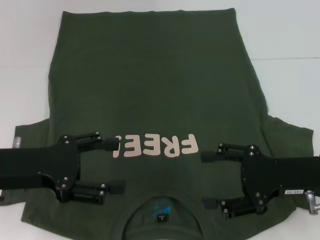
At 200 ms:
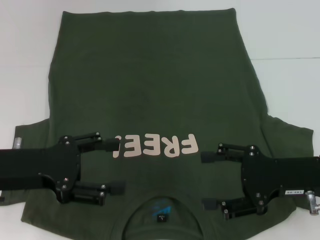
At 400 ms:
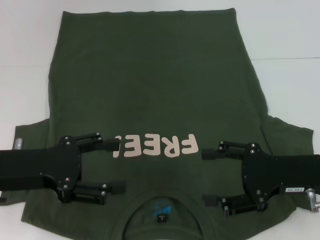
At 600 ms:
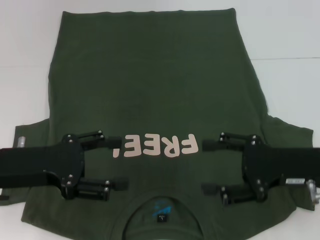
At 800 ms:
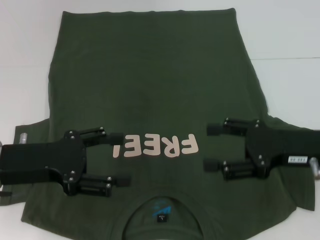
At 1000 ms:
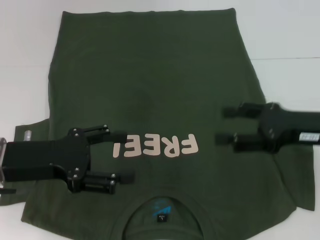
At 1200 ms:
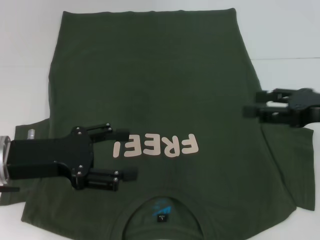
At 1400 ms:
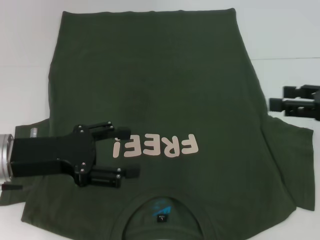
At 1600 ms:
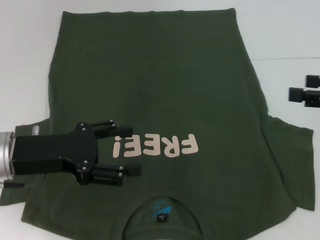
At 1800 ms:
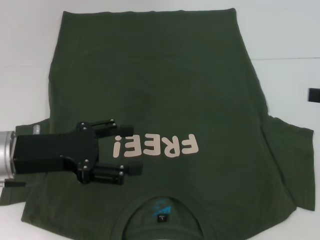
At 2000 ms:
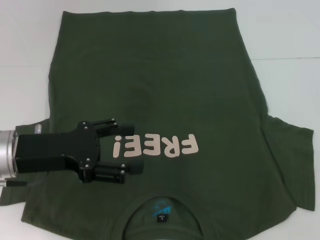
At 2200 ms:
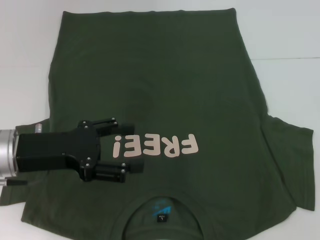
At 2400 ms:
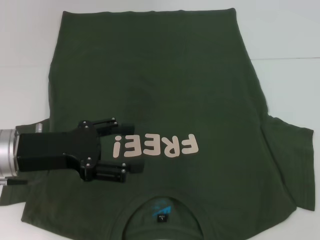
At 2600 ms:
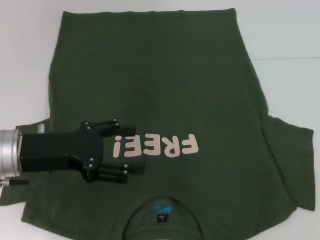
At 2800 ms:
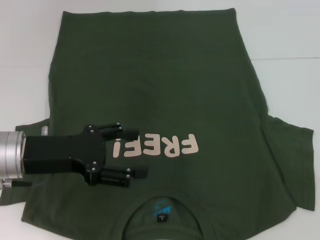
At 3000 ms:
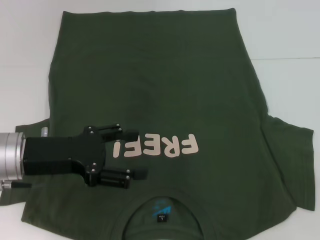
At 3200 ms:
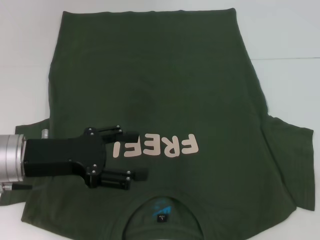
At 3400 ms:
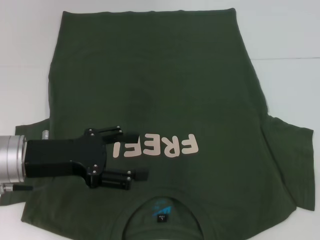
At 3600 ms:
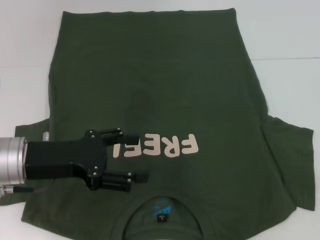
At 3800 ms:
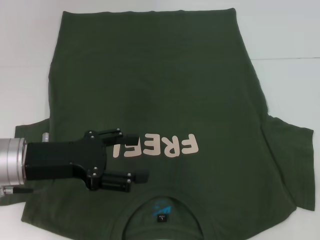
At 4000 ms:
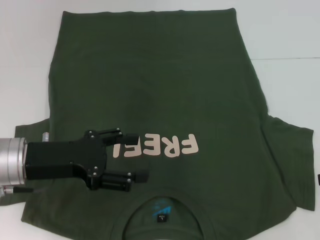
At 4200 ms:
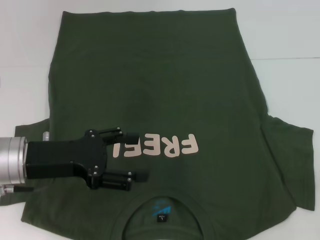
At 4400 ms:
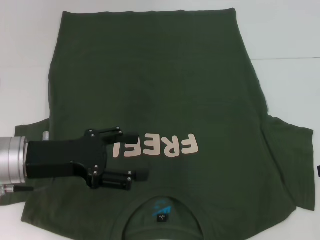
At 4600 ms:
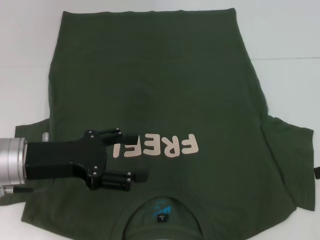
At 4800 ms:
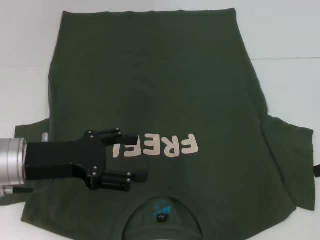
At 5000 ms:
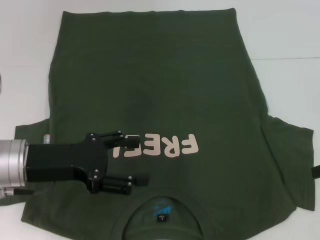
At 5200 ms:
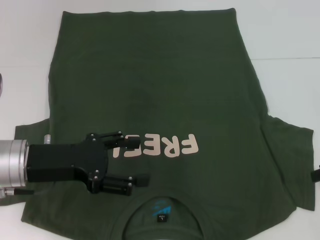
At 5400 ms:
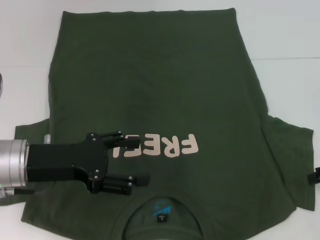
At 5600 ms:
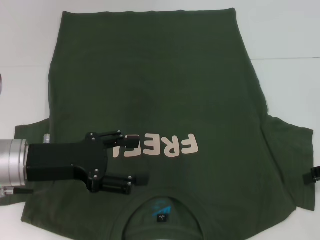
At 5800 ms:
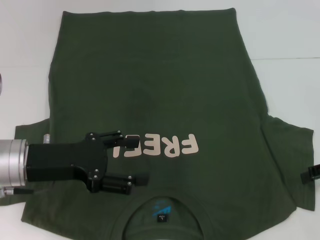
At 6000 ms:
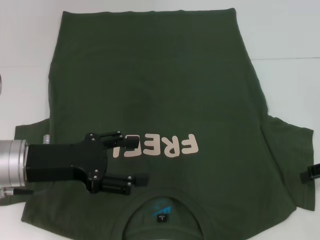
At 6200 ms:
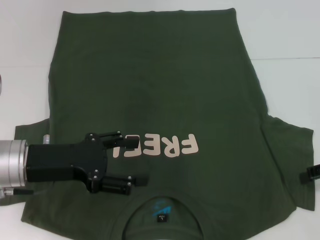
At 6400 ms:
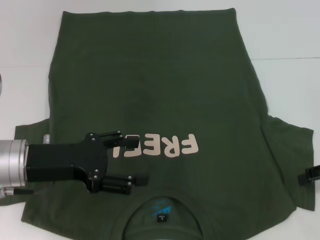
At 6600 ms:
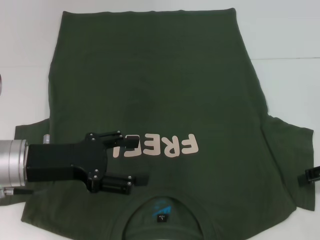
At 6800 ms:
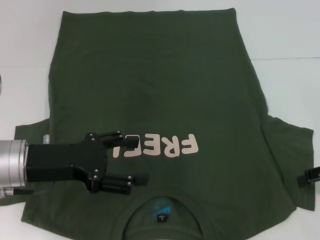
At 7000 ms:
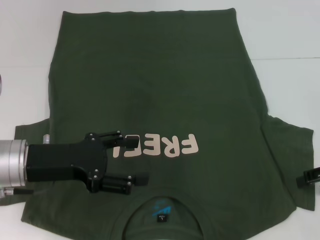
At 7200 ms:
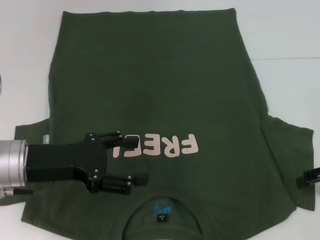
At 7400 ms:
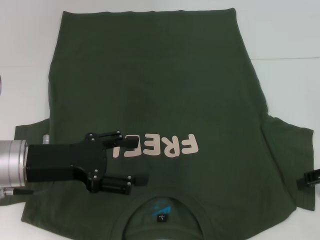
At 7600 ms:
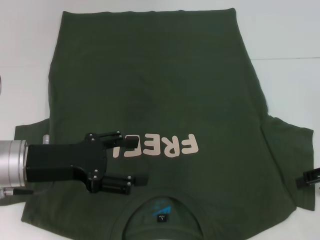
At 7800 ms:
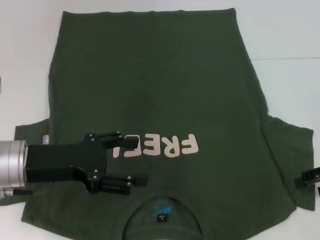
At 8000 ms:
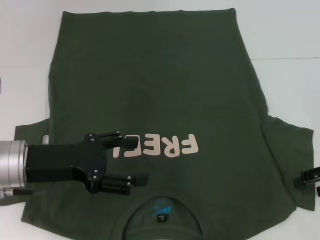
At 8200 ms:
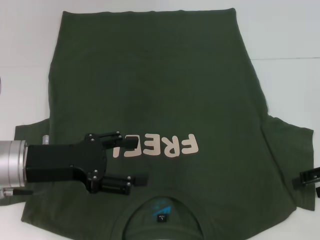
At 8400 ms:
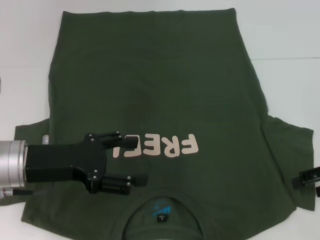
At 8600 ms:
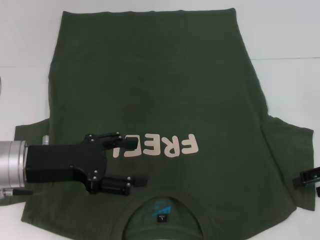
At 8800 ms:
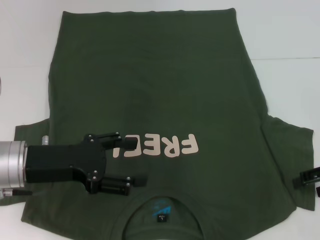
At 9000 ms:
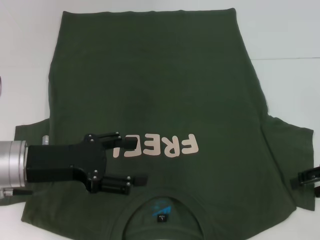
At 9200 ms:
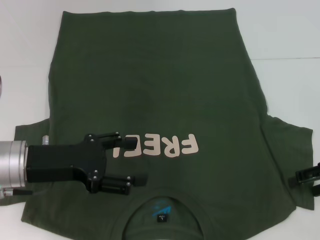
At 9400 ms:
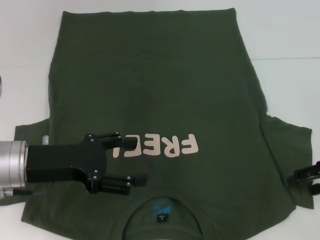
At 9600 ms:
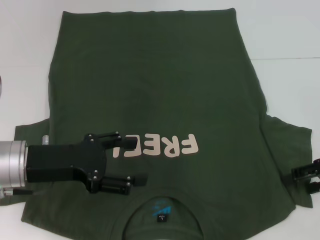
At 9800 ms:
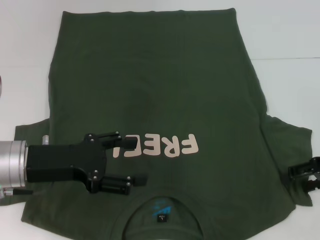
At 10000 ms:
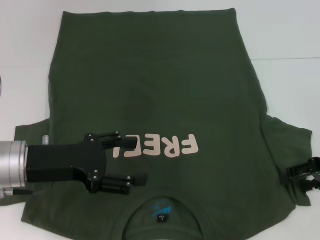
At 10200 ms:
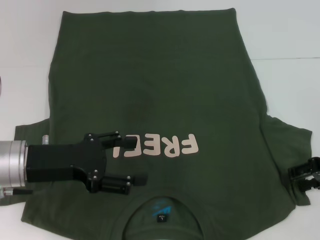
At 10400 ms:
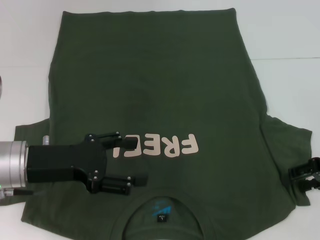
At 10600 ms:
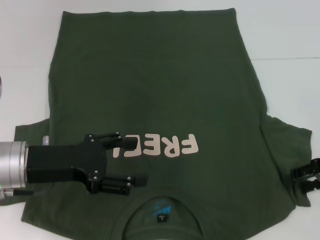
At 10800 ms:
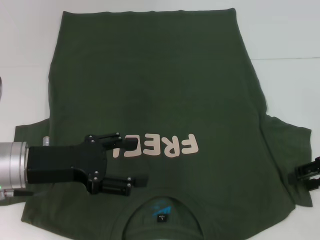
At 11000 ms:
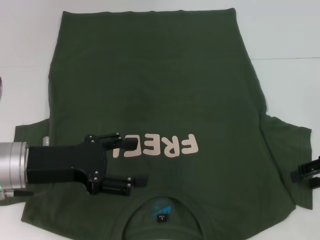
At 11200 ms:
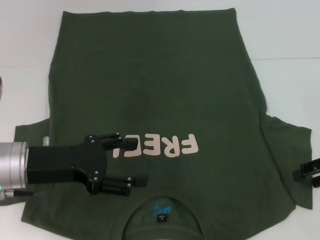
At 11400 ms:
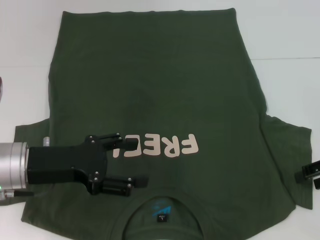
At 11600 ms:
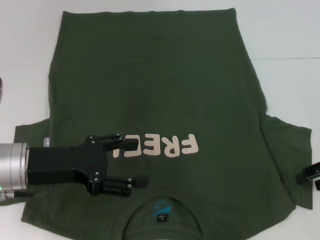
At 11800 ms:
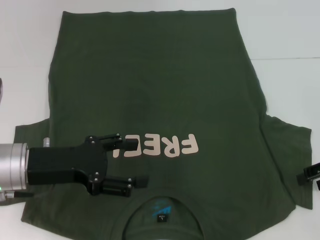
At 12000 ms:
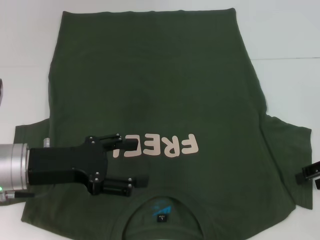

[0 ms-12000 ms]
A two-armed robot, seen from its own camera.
0 ms to 1600 ms: The right gripper heads upward and to the right, covering roughly 15 cm.
1600 ms to 3000 ms: The right gripper goes approximately 5 cm to the right.
4400 ms to 6000 ms: The grippers make only small movements.
6000 ms to 7600 ms: Both grippers stay put.
7600 ms to 9000 ms: The two grippers keep their place.
9000 ms to 12000 ms: The grippers stay close to where they were, moving slightly.

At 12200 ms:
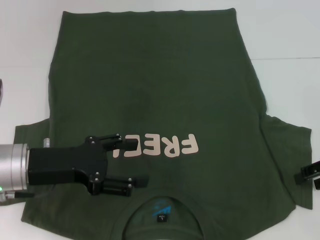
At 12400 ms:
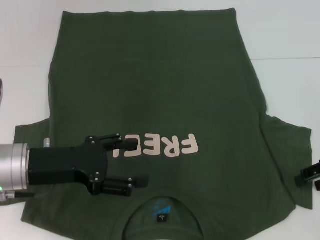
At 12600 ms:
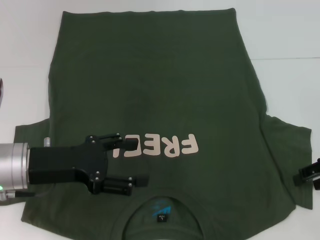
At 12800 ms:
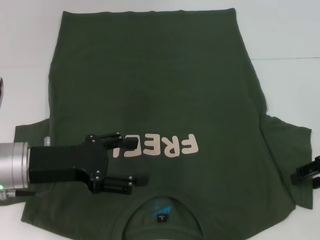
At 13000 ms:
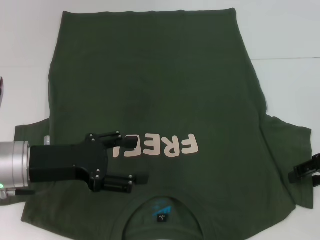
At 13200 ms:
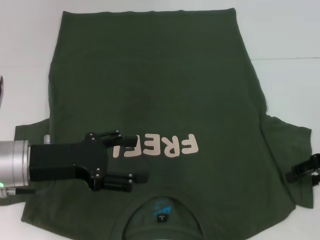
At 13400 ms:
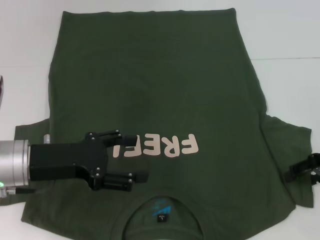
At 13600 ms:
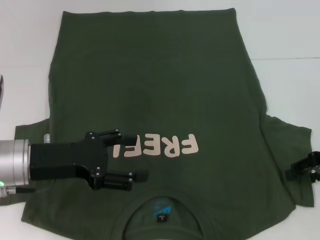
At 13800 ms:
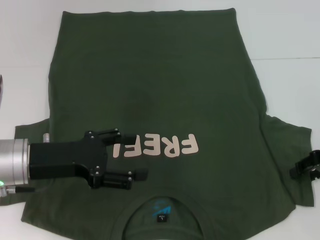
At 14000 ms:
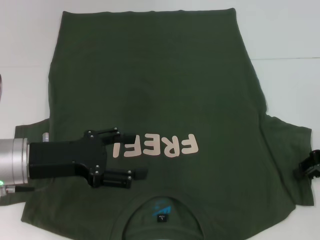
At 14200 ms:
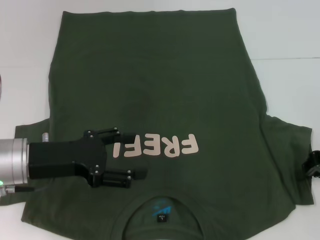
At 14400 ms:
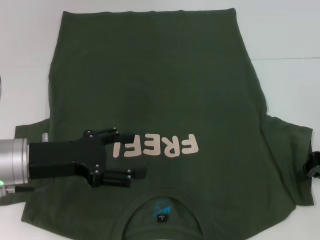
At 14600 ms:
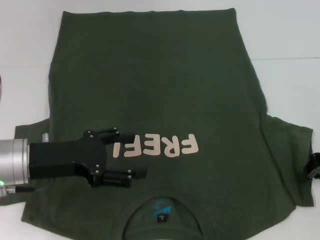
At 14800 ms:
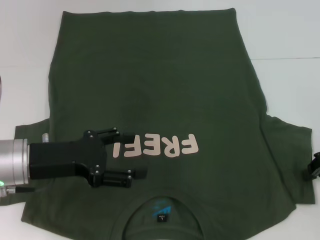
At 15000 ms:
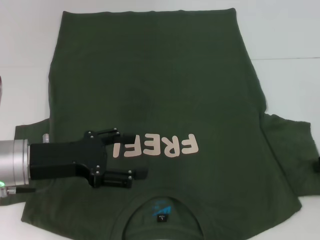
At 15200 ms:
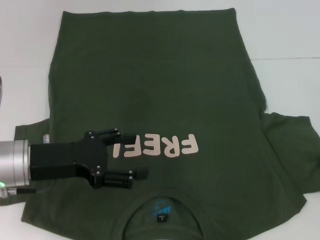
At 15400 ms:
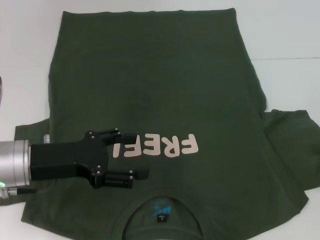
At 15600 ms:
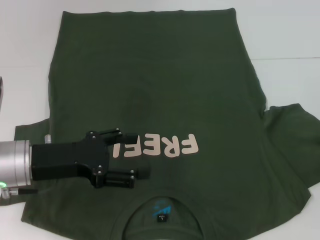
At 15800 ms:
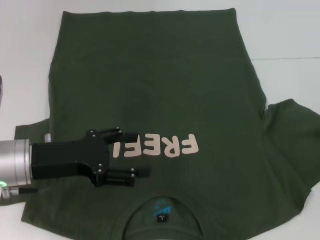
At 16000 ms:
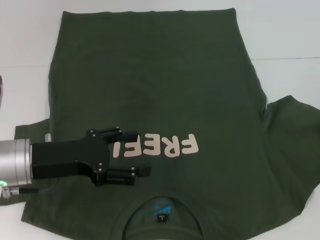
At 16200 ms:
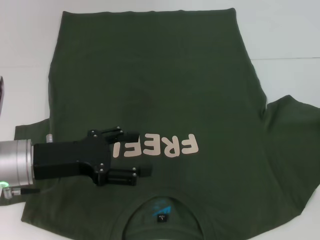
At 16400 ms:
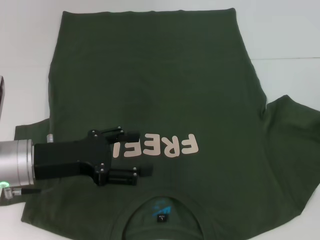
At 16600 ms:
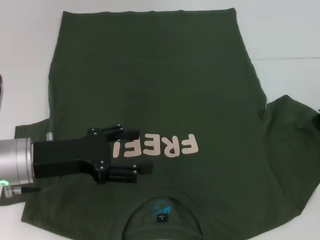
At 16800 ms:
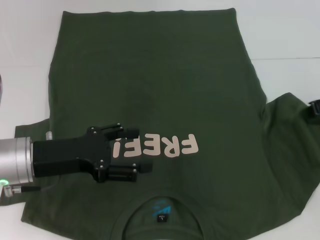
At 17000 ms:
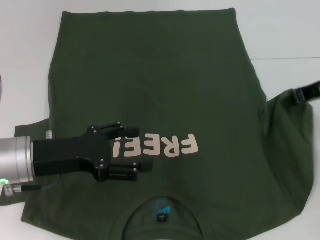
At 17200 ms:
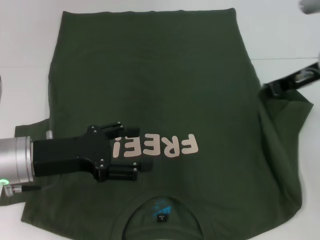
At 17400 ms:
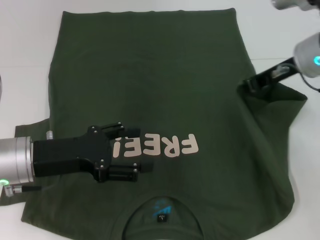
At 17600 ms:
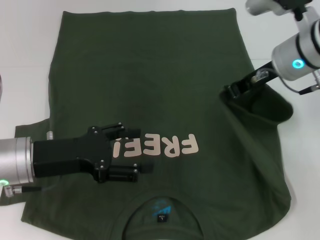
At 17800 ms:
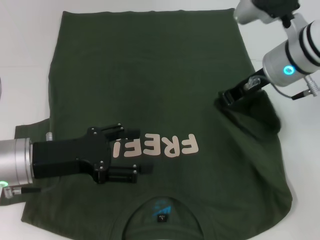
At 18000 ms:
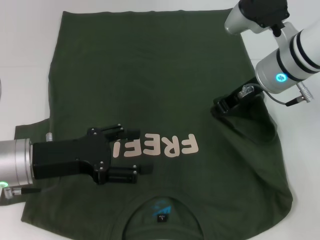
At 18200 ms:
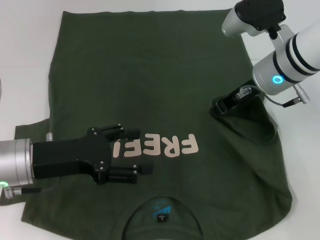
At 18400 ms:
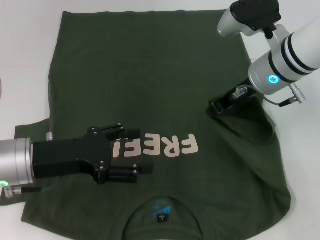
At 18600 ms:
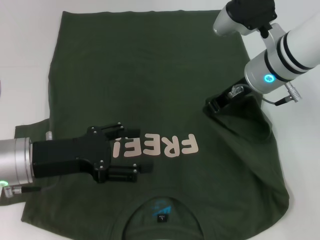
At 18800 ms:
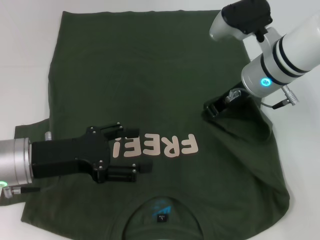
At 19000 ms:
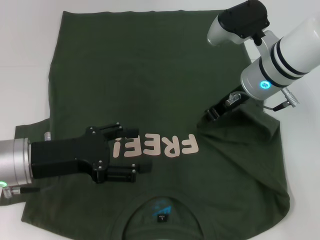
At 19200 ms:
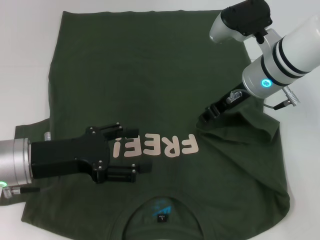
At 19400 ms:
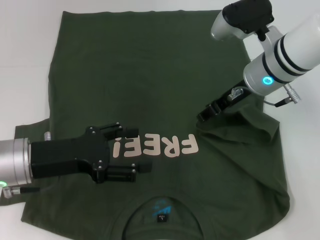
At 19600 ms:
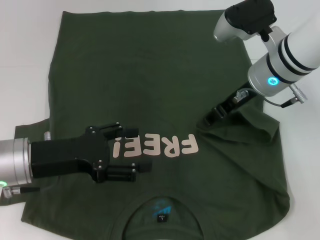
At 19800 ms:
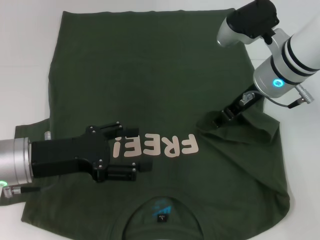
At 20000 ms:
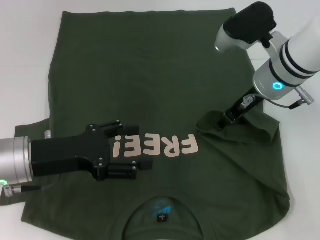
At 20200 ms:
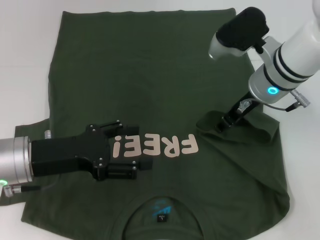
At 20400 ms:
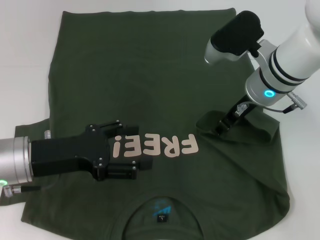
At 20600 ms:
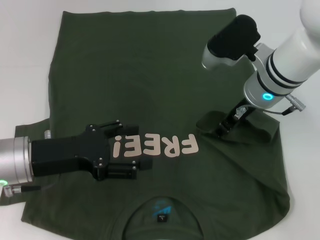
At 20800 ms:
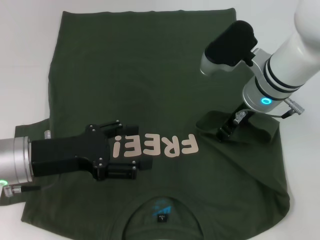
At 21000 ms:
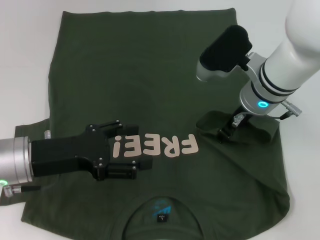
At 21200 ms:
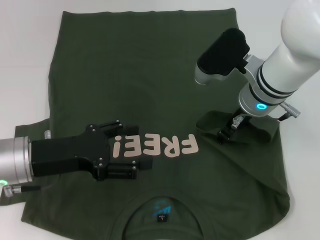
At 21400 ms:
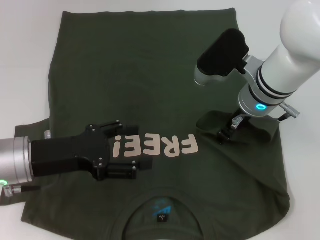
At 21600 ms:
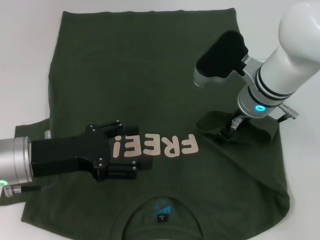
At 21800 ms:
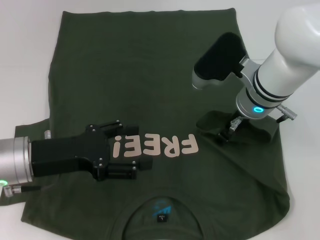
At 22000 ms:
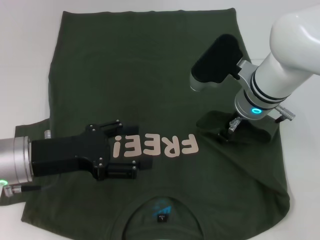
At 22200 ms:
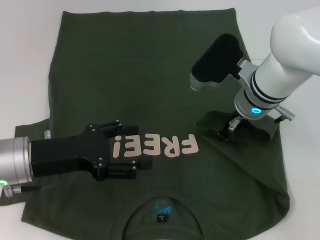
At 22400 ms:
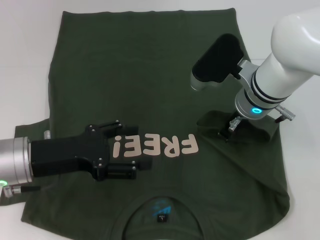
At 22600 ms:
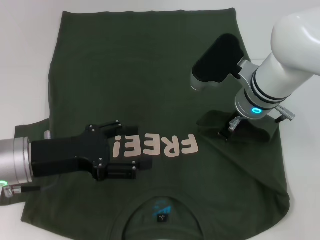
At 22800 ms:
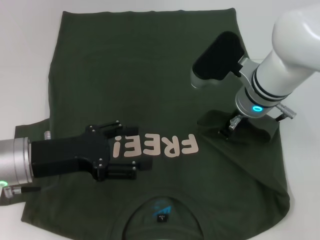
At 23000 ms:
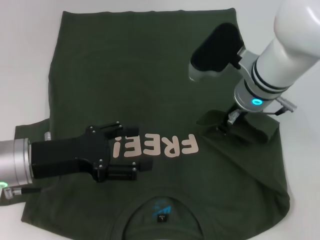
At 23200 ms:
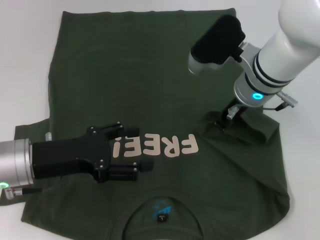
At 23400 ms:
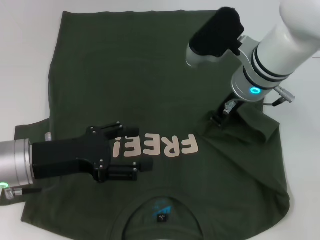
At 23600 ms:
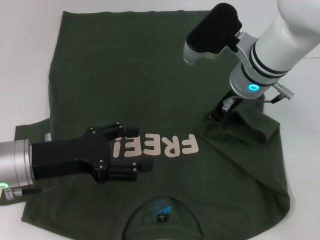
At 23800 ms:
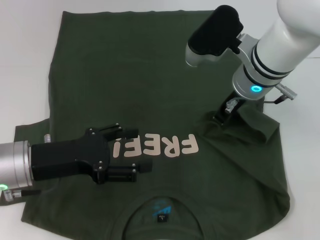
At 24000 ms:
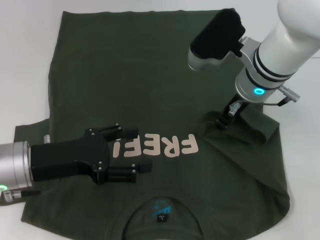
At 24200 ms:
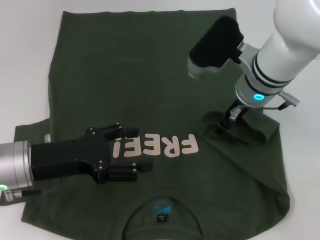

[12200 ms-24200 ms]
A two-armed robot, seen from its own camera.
12200 ms to 13800 ms: There are only small adjustments of the grippers.
13800 ms to 15200 ms: The right gripper closes.
15200 ms to 16600 ms: The right gripper shifts by roughly 5 cm.
16600 ms to 18200 ms: The right gripper is displaced to the left by approximately 15 cm.
18200 ms to 19800 ms: The right gripper opens its fingers.
19800 ms to 21200 ms: There are only small adjustments of the grippers.
21200 ms to 22600 ms: The right gripper closes its fingers.
22600 ms to 24200 ms: The grippers stay close to where they were, moving slightly.
